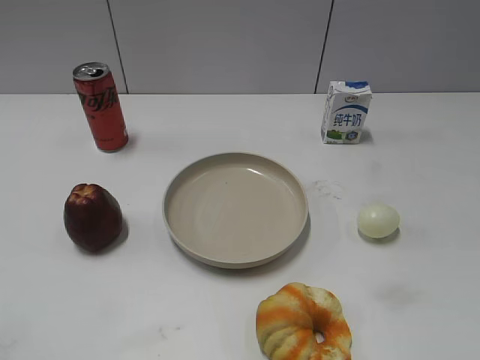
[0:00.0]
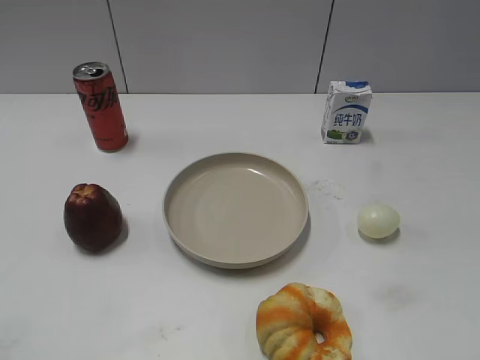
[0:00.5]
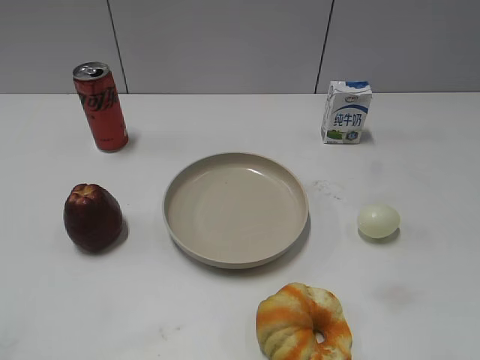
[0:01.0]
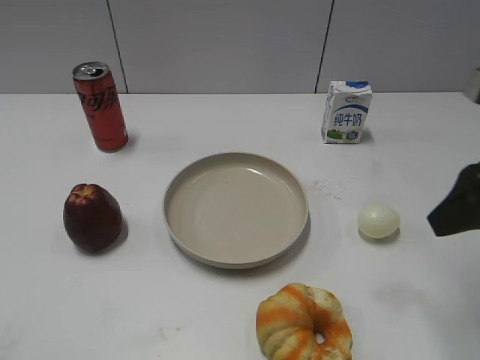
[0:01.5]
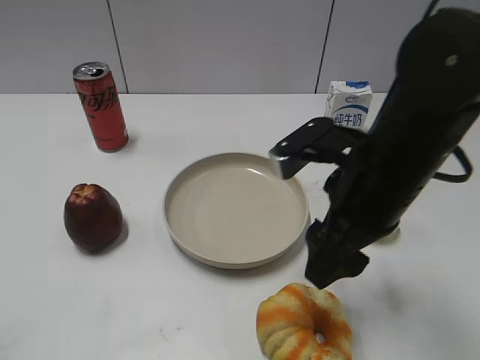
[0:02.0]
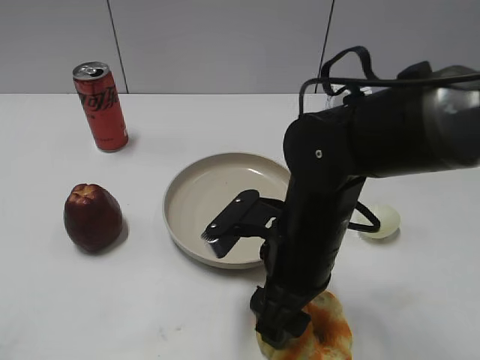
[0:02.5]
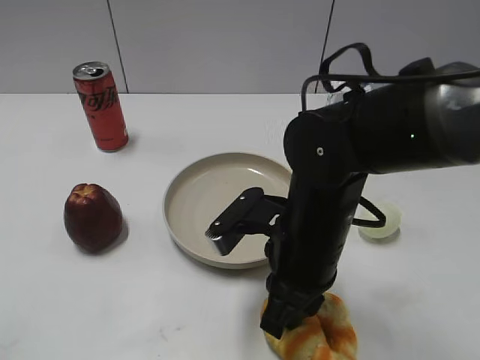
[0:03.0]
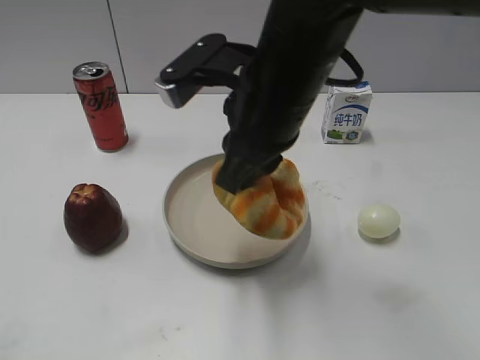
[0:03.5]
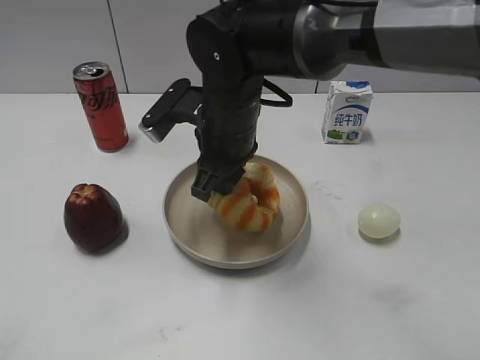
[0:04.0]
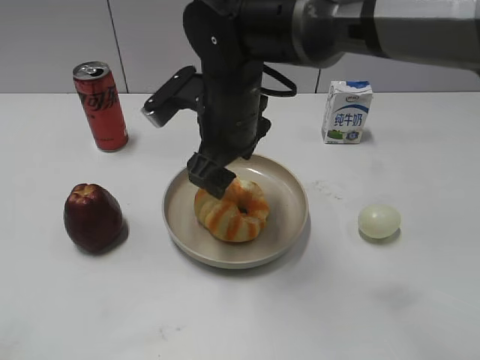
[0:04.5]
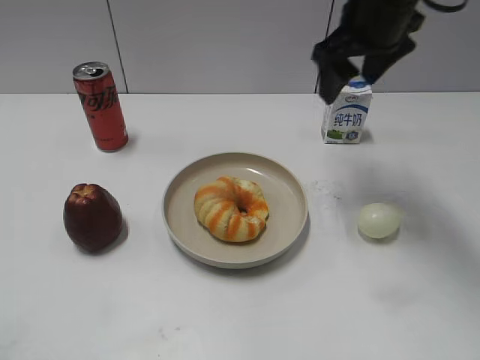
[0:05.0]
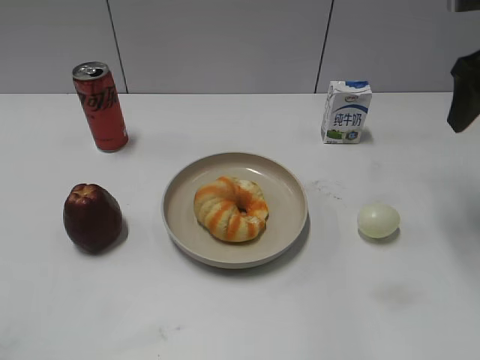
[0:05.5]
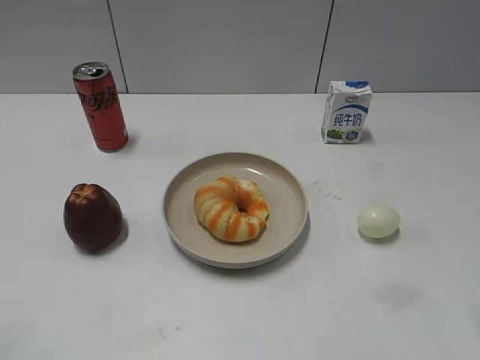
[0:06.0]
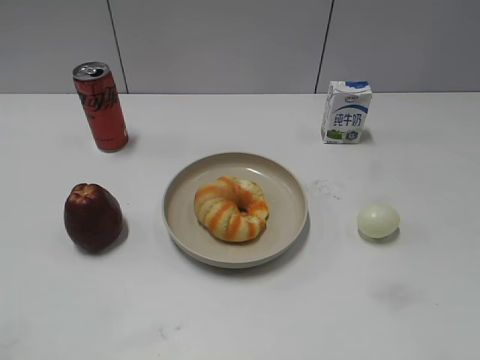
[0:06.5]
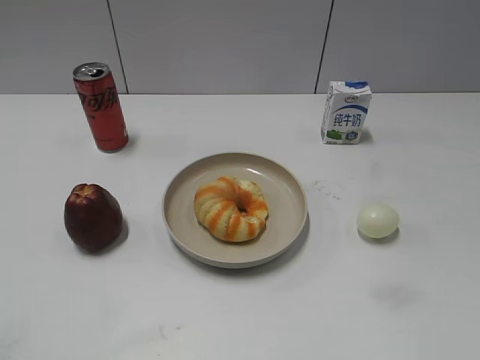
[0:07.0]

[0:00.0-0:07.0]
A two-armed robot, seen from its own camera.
Step, 0:01.0 to 0:02.5: Grasp the round bread with right gripper.
Step, 0:03.0 to 0:04.5: Place the round bread on the plate with right gripper.
0:02.0 to 0:03.5: The right gripper shifts approximately 10 cm to the left and upward, and closes.
0:03.5 to 0:05.0: The right gripper moves forward and to the right, approximately 15 cm, and opens up.
0:05.0 to 0:07.0: The right gripper travels backward and to the right by approximately 40 cm.

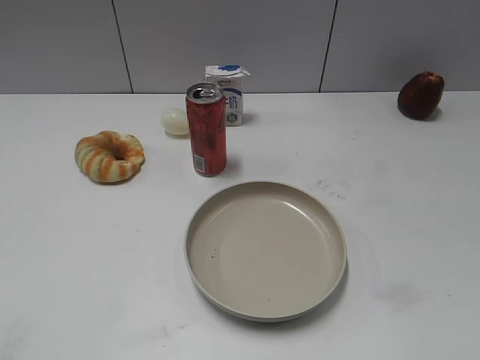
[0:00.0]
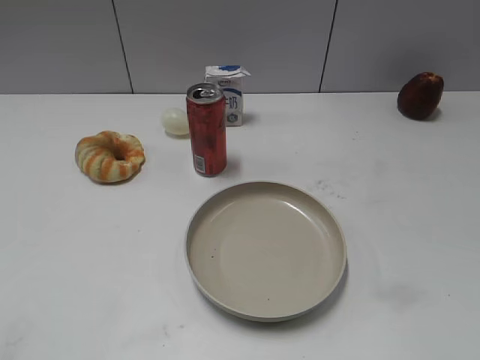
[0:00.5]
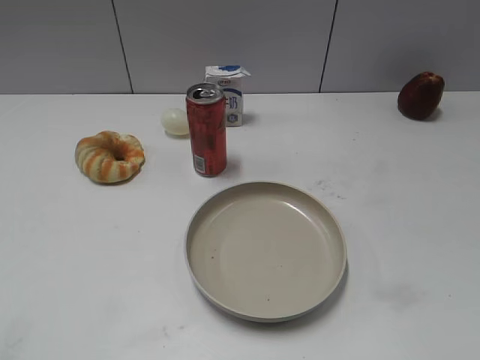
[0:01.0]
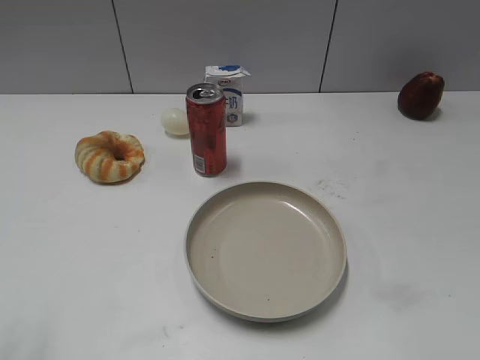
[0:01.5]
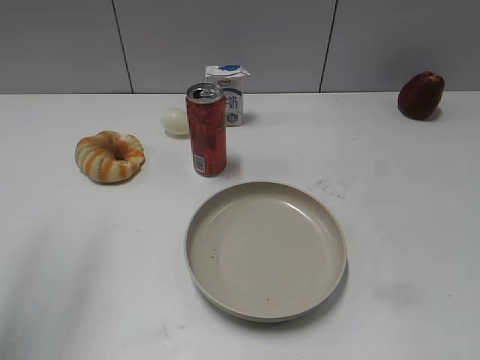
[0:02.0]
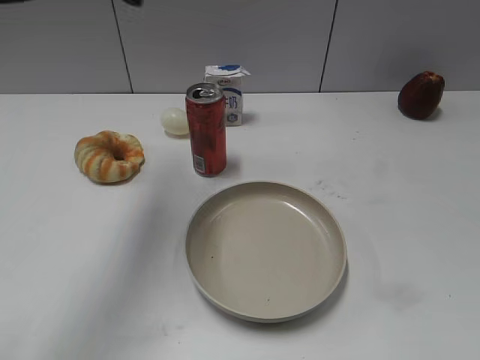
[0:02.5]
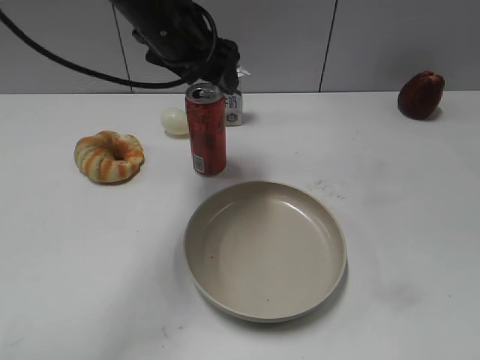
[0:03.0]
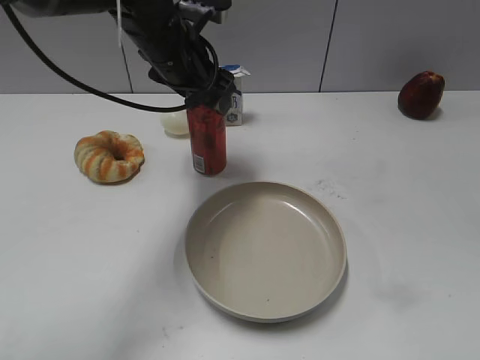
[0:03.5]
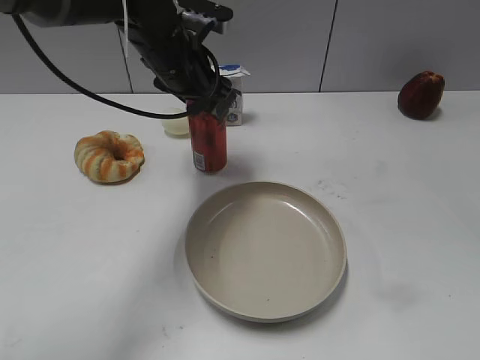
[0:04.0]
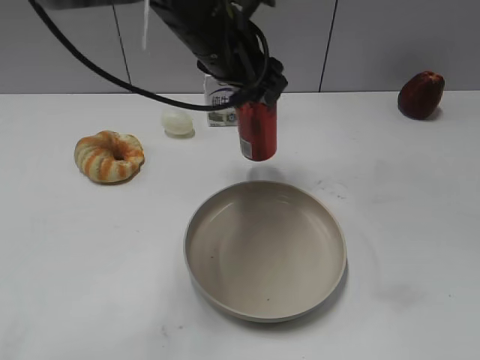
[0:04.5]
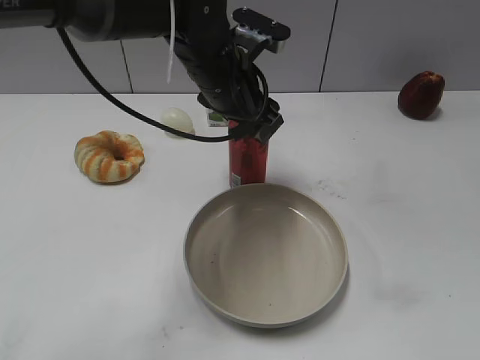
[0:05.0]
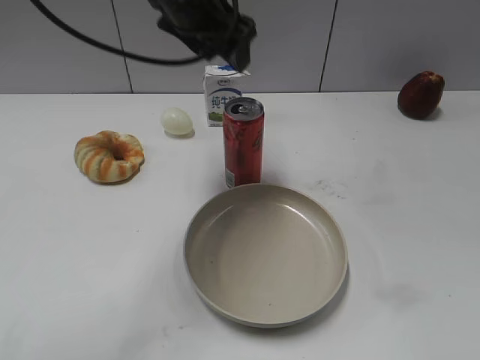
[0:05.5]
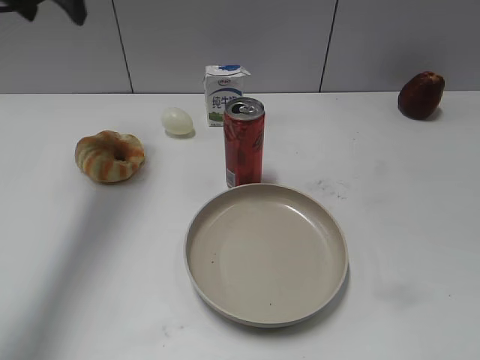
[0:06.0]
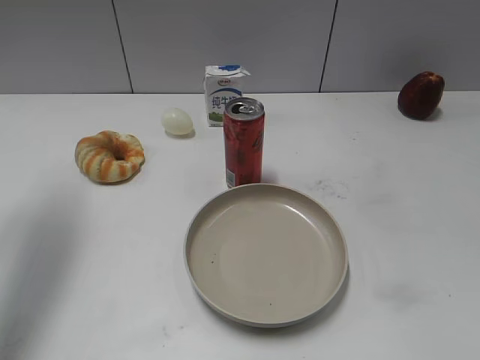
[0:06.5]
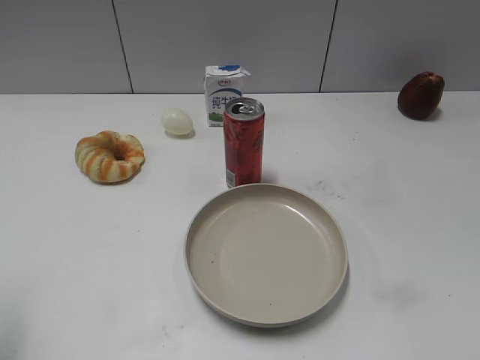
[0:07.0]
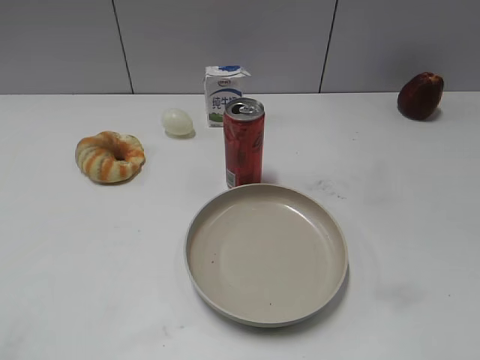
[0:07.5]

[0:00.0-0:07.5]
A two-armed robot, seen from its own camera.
Step, 0:03.0 to 0:03.5: Grasp the cola with left gripper.
Step, 0:04.5 to 0:05.5: Place the cola on the table with left gripper.
0:02.0 to 0:04.0: The left gripper goes approximately 35 cm to the right, forward and downward, and opens, then closes again.
0:04.0 to 0:05.5: The left gripper shifts some 10 cm upward, and opens.
0:05.5 to 0:07.5: The left gripper shifts roughly 40 cm backward and to the left, and closes its fingers.
